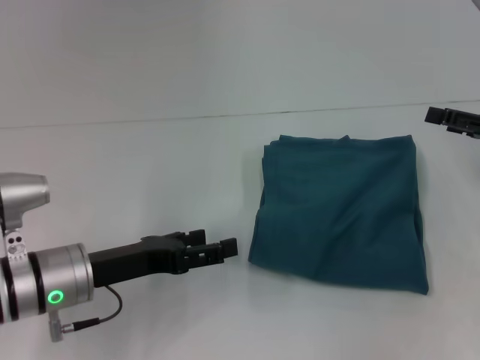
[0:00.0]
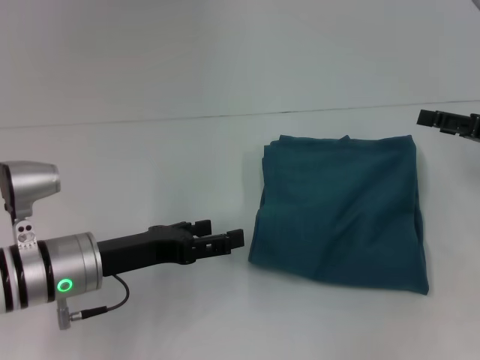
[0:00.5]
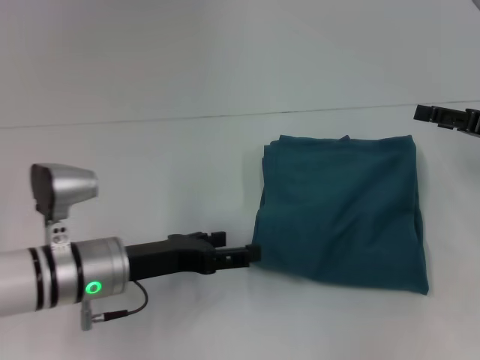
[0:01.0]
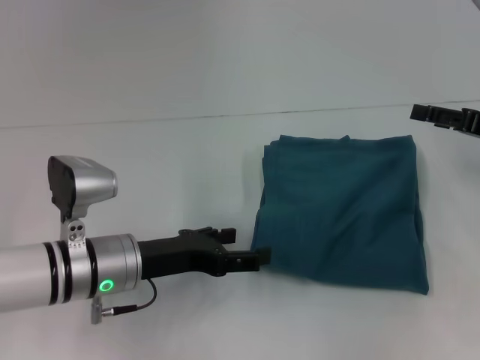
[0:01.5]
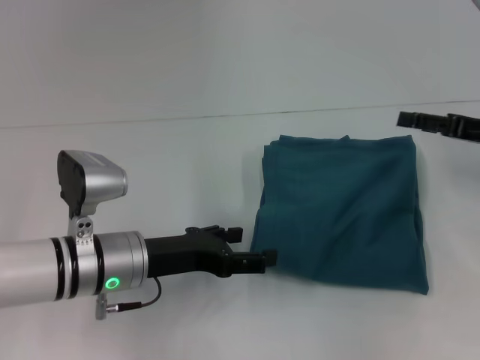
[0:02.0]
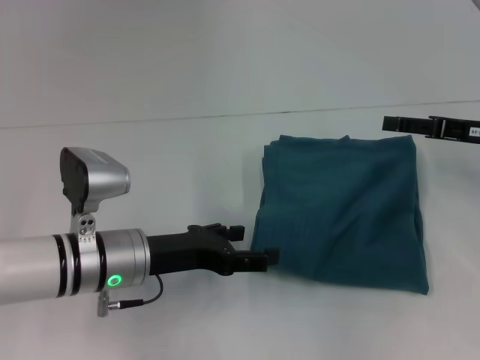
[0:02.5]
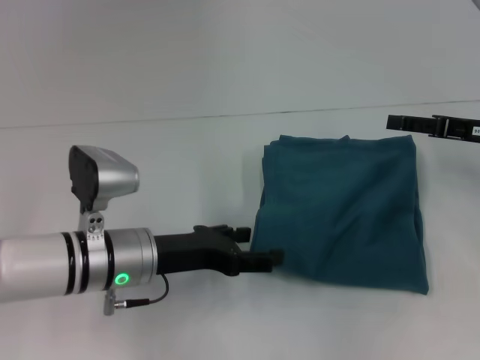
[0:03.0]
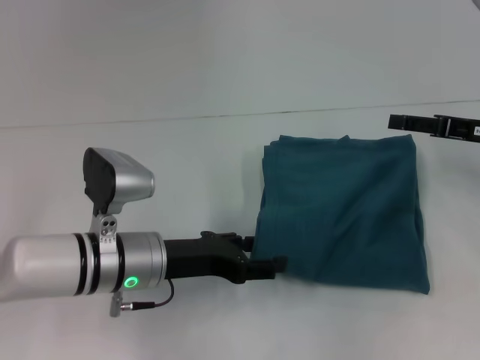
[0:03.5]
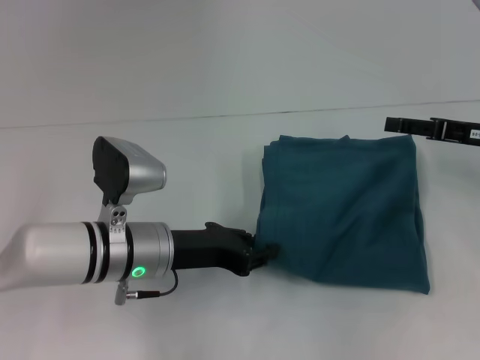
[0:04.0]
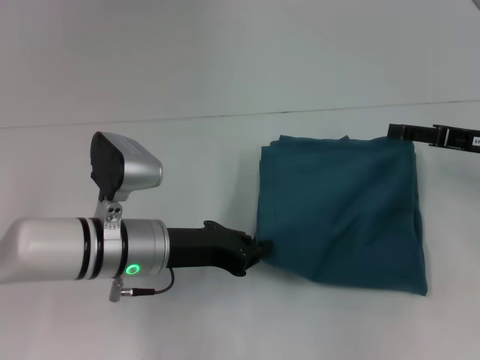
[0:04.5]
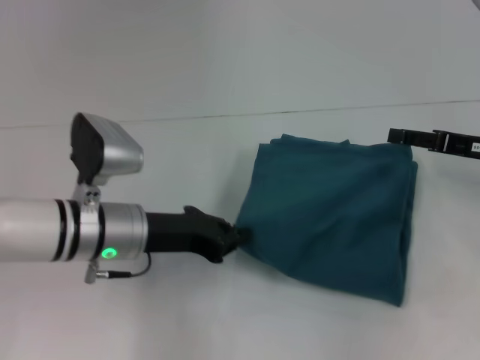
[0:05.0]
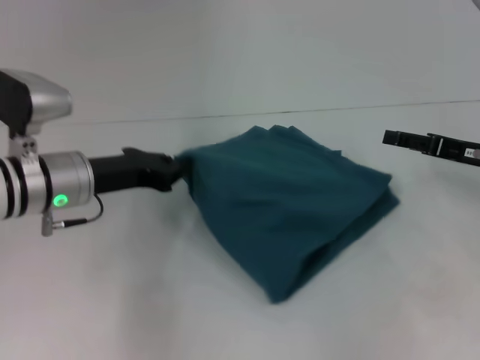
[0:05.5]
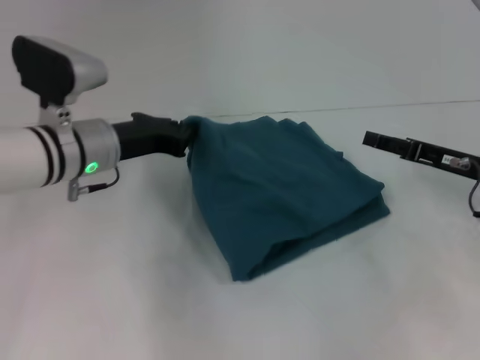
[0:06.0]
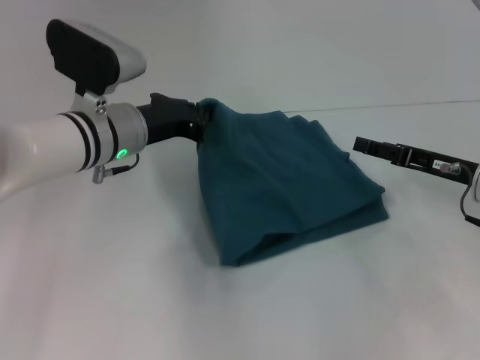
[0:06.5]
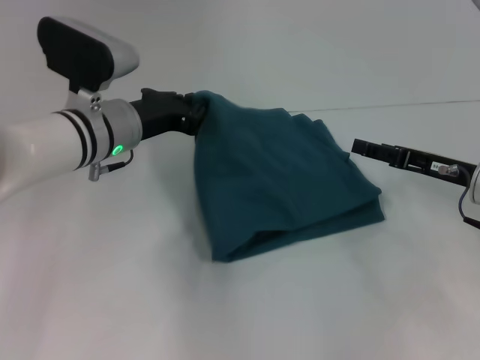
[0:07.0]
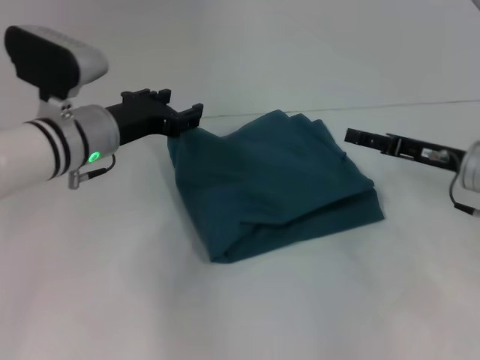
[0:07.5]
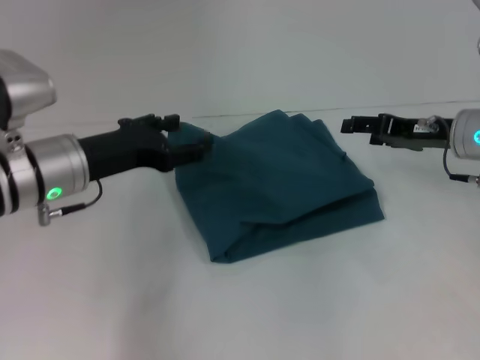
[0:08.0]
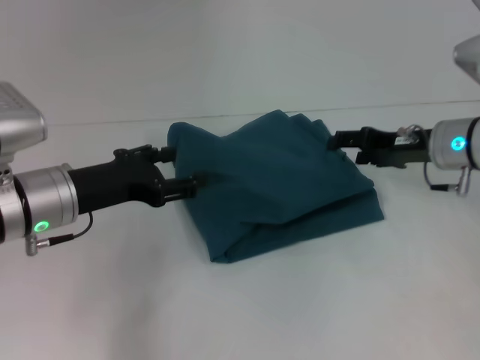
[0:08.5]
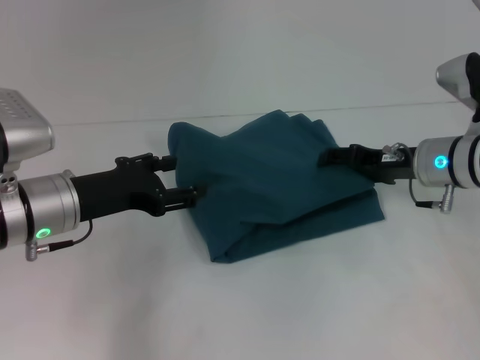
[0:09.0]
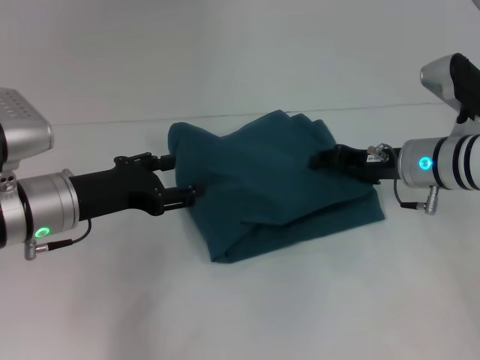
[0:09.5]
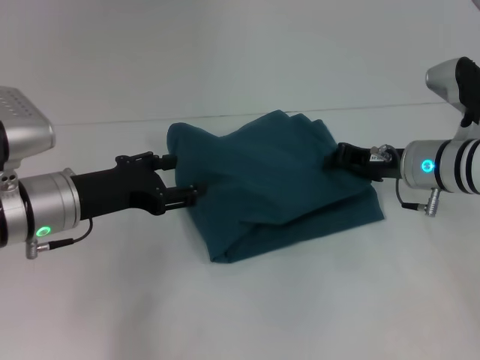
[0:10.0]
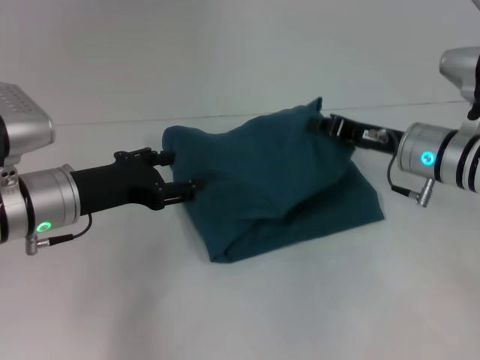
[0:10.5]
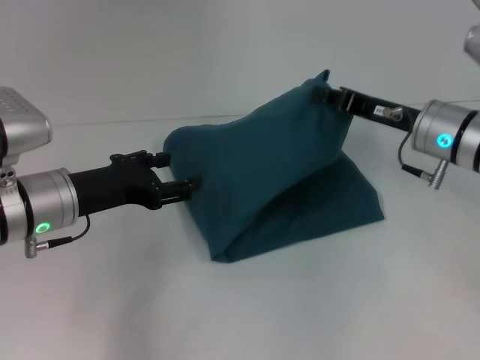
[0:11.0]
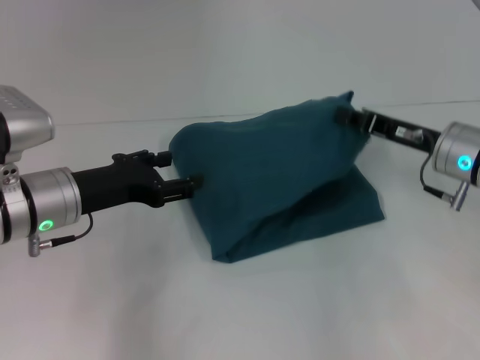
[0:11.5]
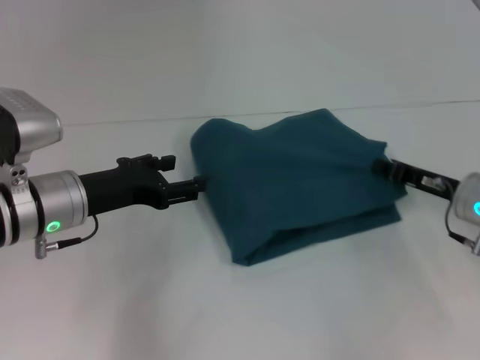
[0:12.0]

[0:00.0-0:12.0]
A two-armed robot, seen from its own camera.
0:00.0 to 0:02.0: The left gripper moves roughly 5 cm.
0:02.0 to 0:04.0: The left gripper closes up.
0:04.0 to 0:06.0: The left gripper goes about 10 cm forward and upward, and closes its fingers. Meanwhile the right gripper shifts by roughly 5 cm.
0:06.0 to 0:08.0: The left gripper opens its fingers. Meanwhile the right gripper heads forward, covering approximately 5 cm.
0:08.0 to 0:10.0: The right gripper shifts by roughly 5 cm, and closes.
0:10.0 to 0:12.0: The right gripper heads to the right, covering roughly 5 cm.

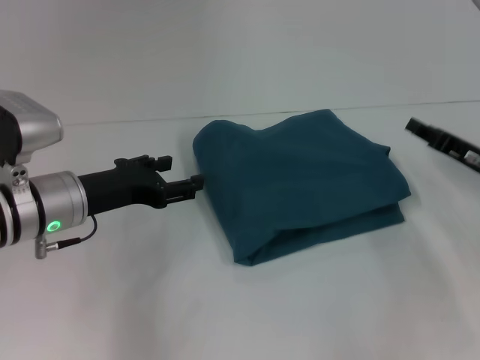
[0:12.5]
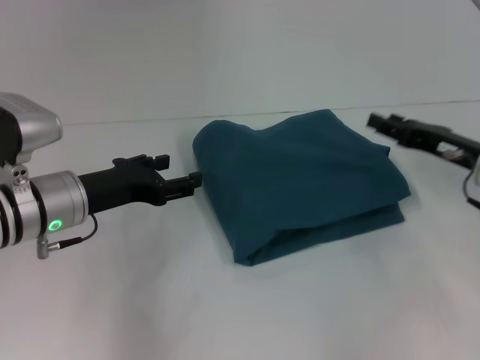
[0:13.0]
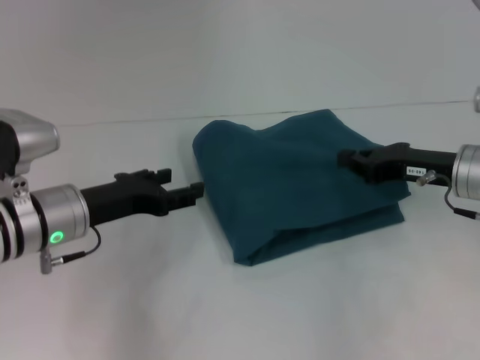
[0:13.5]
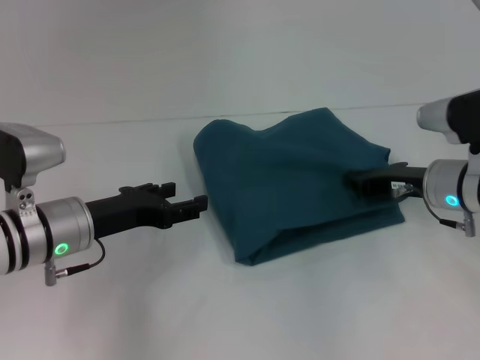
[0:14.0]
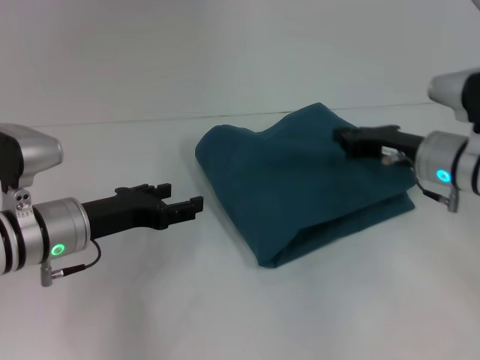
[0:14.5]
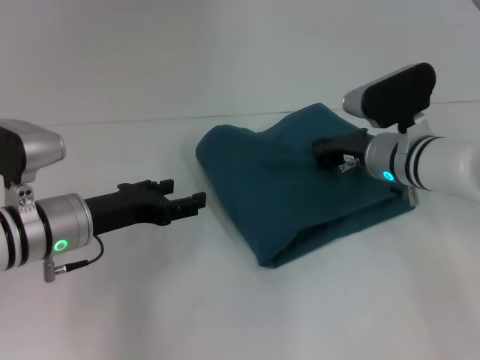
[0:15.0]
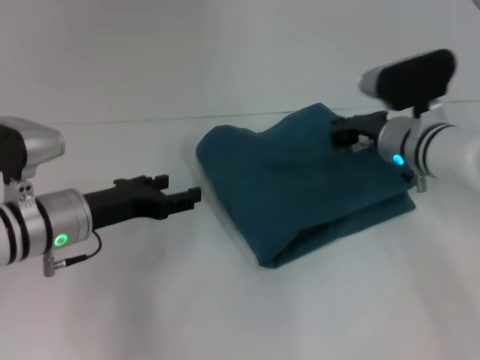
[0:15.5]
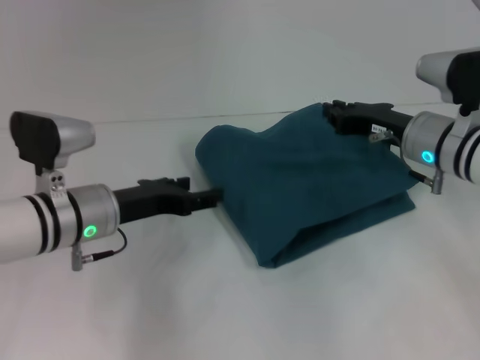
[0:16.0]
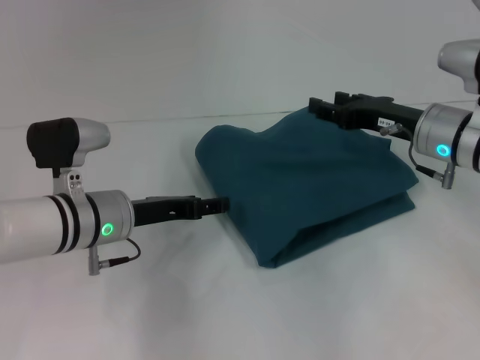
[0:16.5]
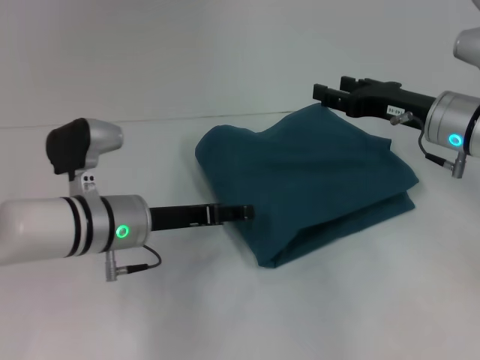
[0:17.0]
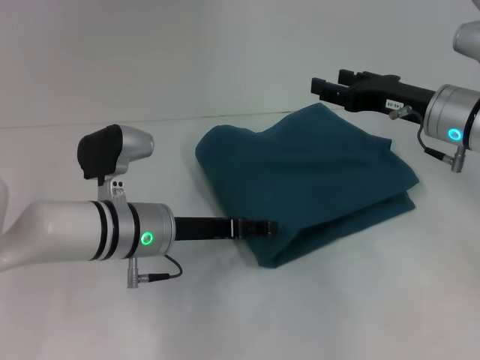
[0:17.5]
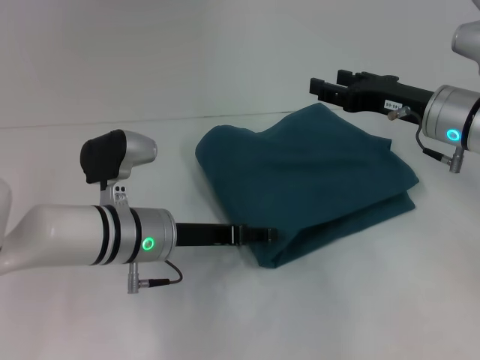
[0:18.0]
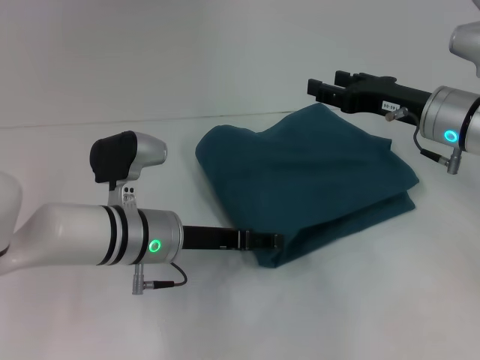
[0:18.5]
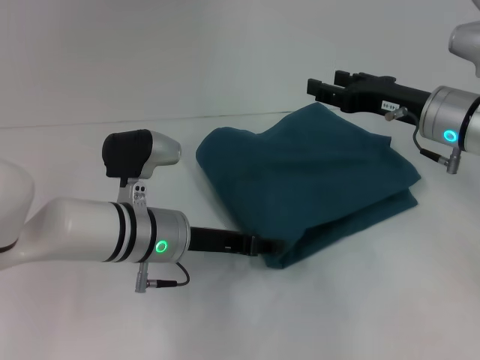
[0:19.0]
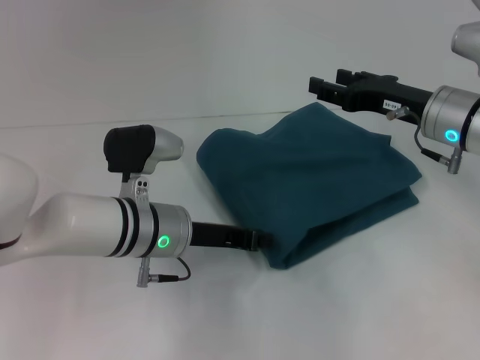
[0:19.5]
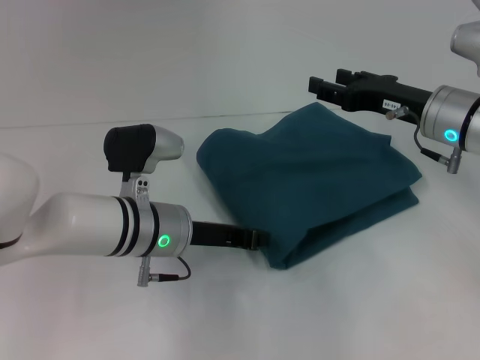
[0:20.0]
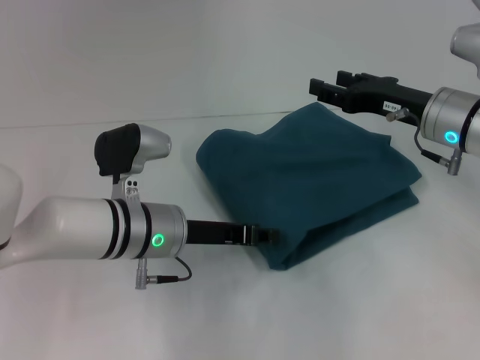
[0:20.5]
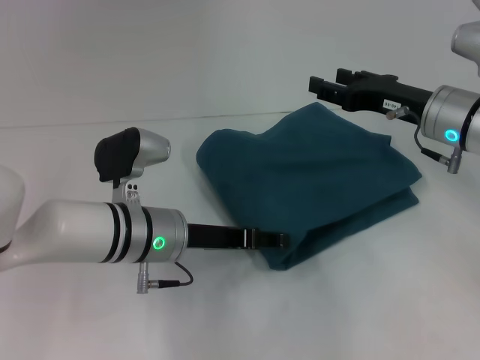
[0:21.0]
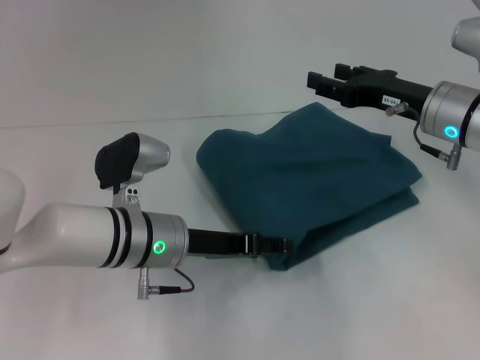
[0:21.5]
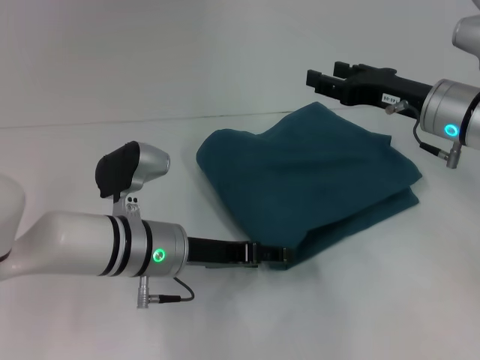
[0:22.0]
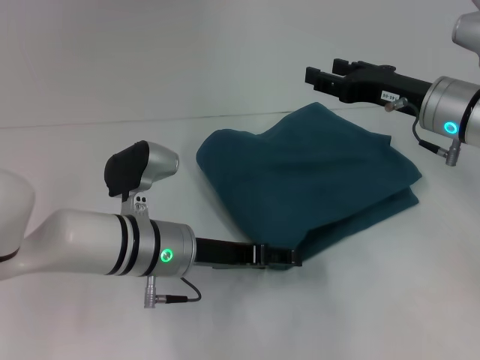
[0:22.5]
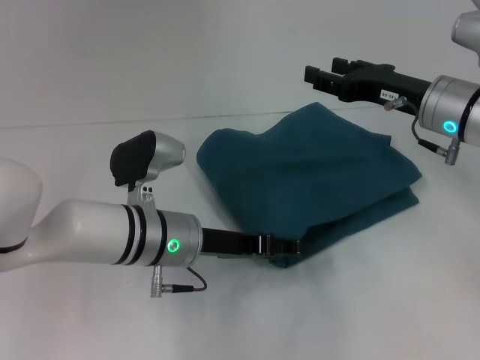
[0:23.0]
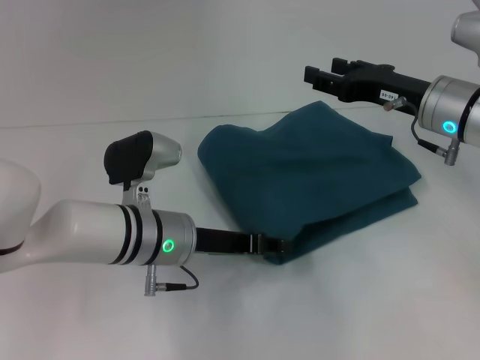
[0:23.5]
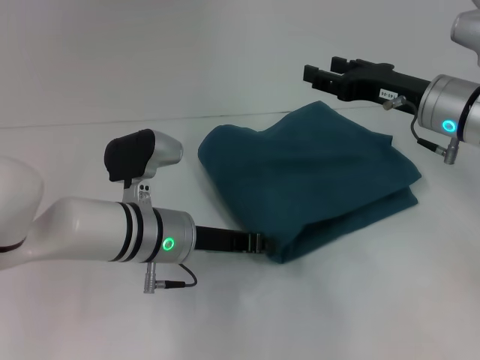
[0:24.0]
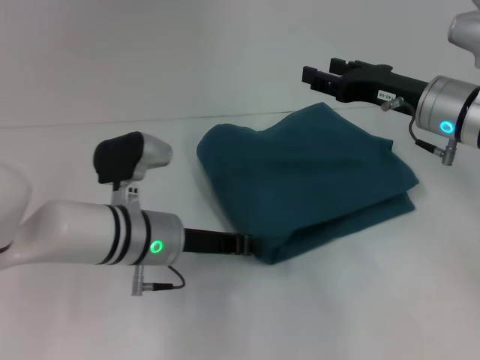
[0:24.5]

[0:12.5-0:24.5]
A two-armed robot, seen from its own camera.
0:12.5 to 0:14.5: The right gripper heads to the left, covering roughly 5 cm, and opens and closes again.
0:14.5 to 0:16.5: The right gripper opens up.
0:16.5 to 0:18.5: The grippers stay close to where they were, moving slightly.
0:18.5 to 0:20.5: The left gripper closes.
0:20.5 to 0:22.5: The left gripper opens its fingers.
0:22.5 to 0:24.5: The left gripper closes.

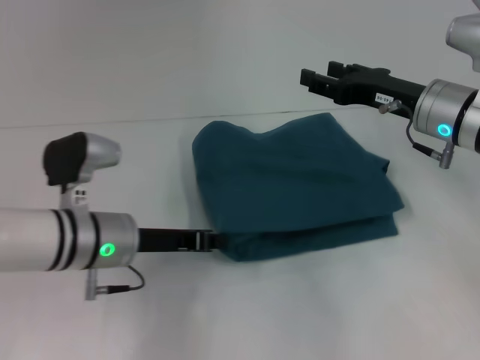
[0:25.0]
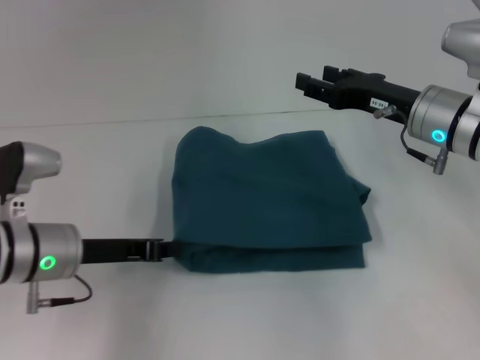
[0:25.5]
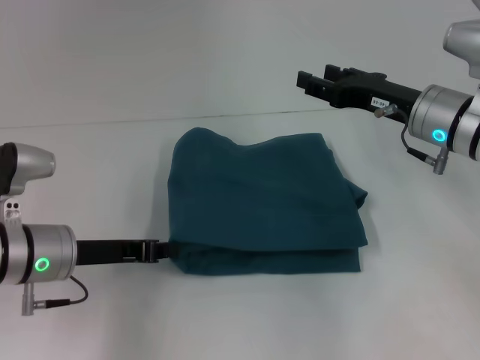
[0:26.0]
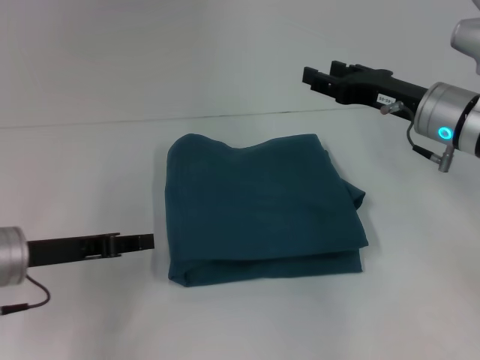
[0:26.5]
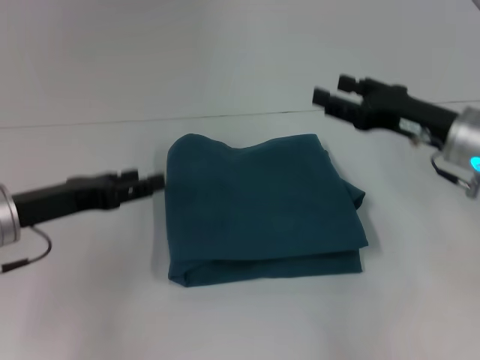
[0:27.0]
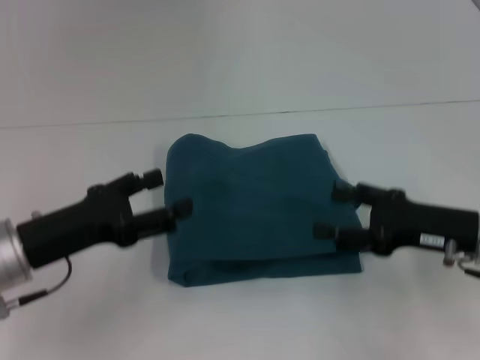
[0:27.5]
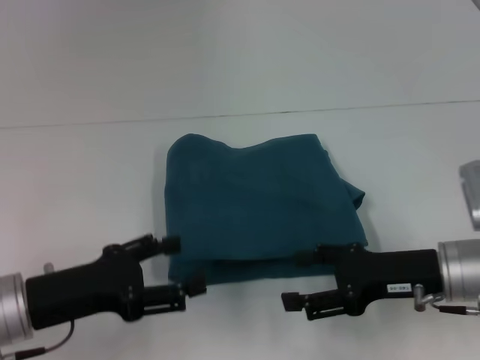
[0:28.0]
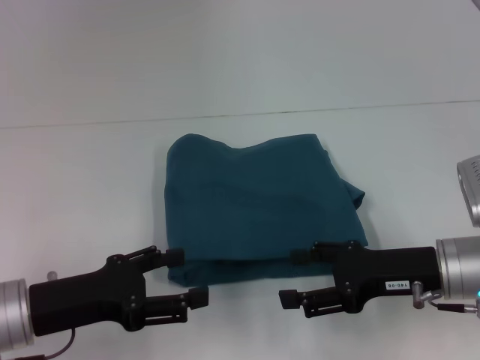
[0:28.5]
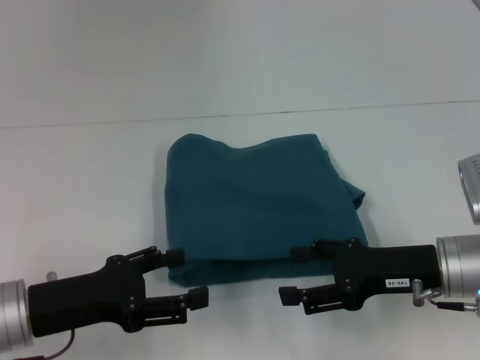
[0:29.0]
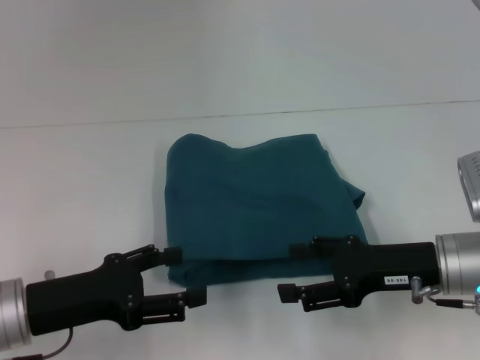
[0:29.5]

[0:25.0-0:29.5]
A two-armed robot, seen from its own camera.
0:25.0 to 0:27.0: The left gripper moves to the left, roughly 10 cm, and opens.
0:27.0 to 0:29.5: The grippers both shift backward by about 5 cm. The left gripper opens its fingers.
